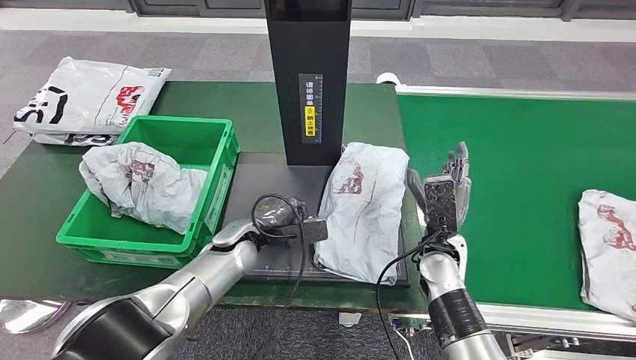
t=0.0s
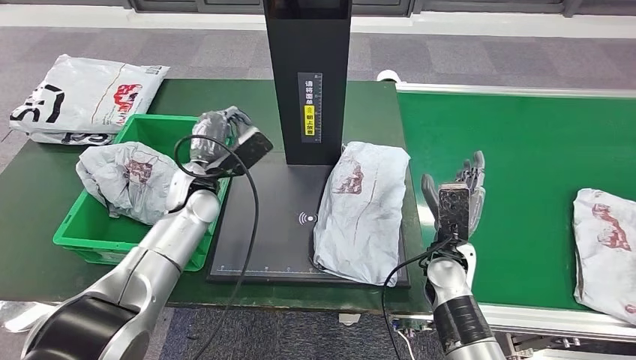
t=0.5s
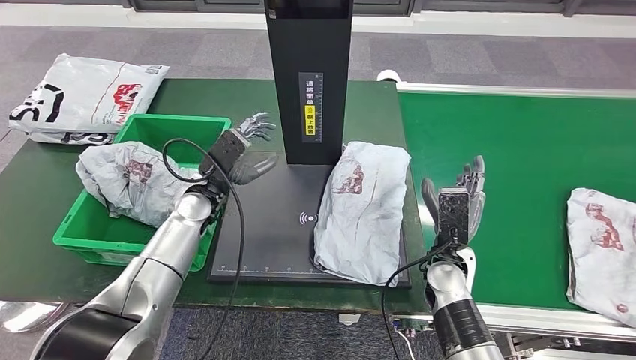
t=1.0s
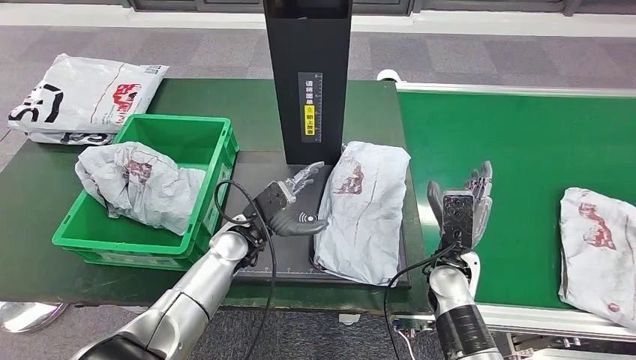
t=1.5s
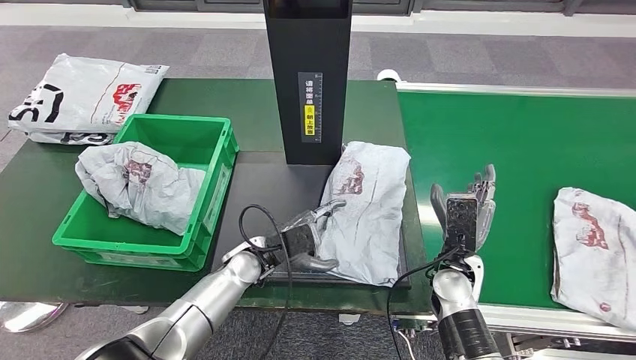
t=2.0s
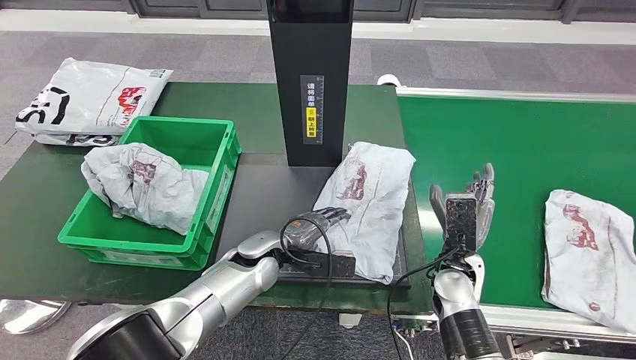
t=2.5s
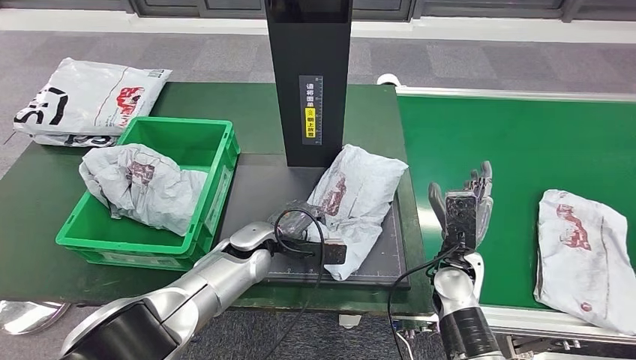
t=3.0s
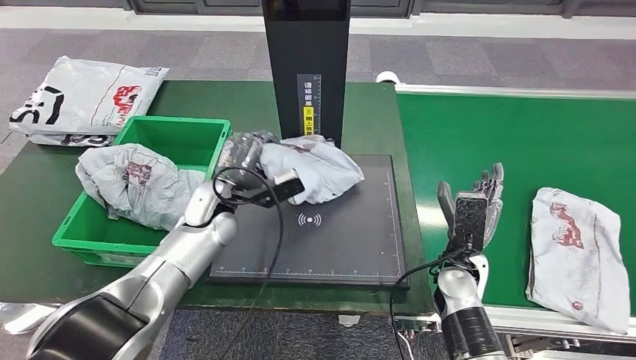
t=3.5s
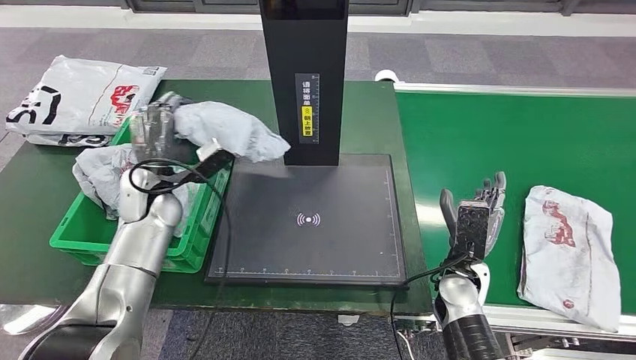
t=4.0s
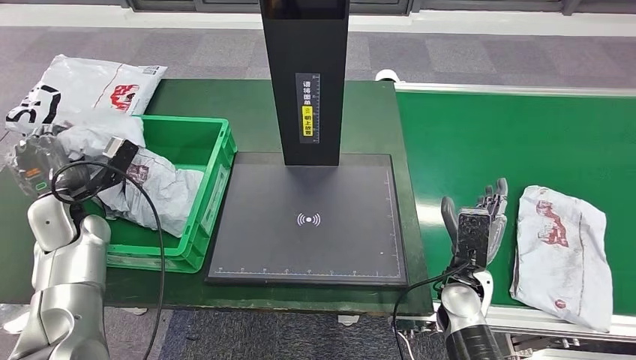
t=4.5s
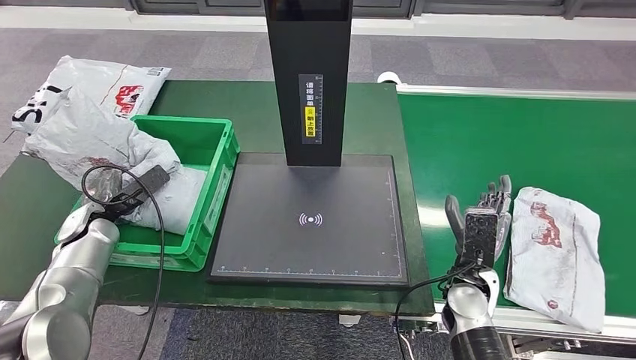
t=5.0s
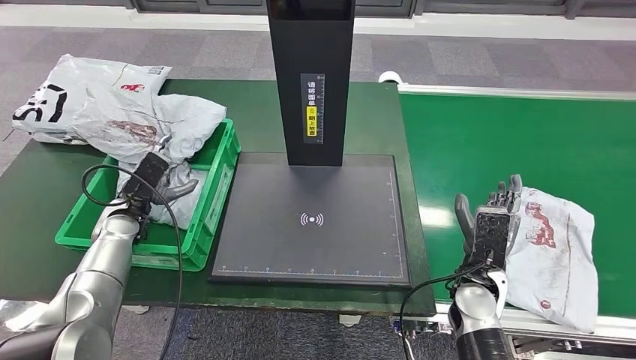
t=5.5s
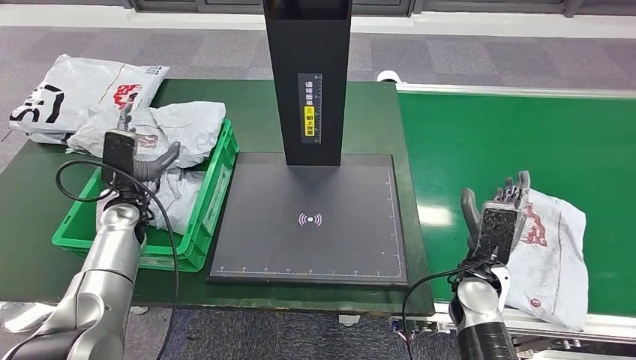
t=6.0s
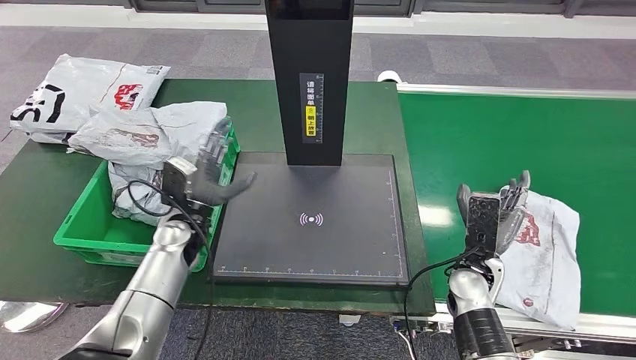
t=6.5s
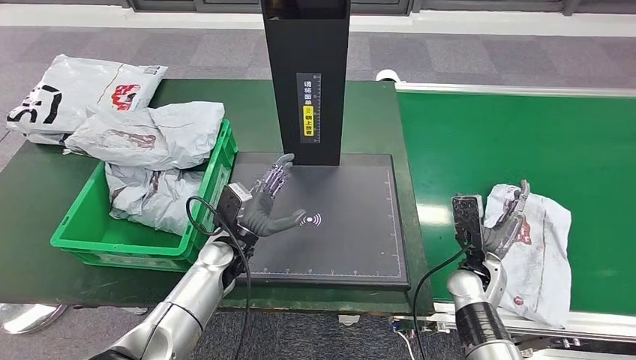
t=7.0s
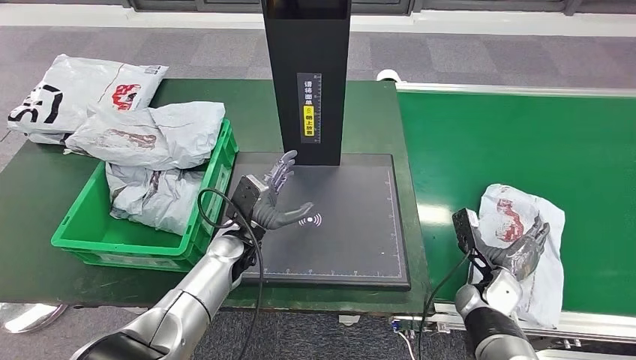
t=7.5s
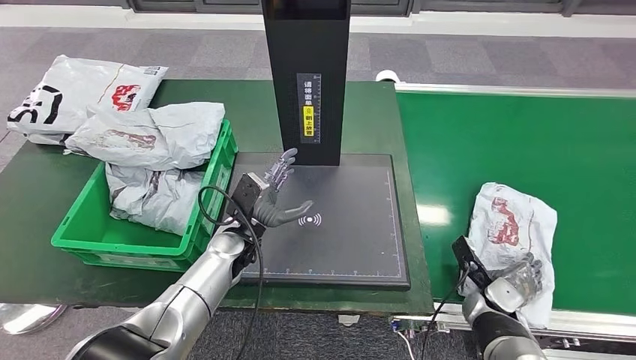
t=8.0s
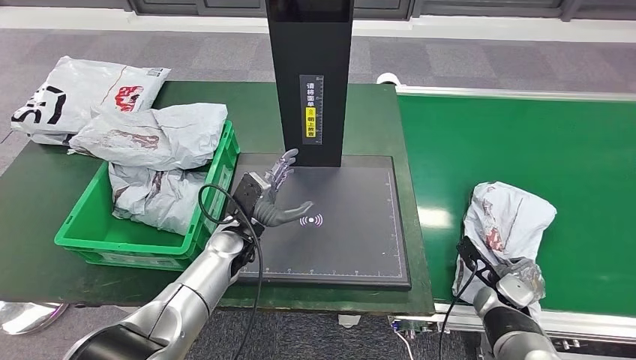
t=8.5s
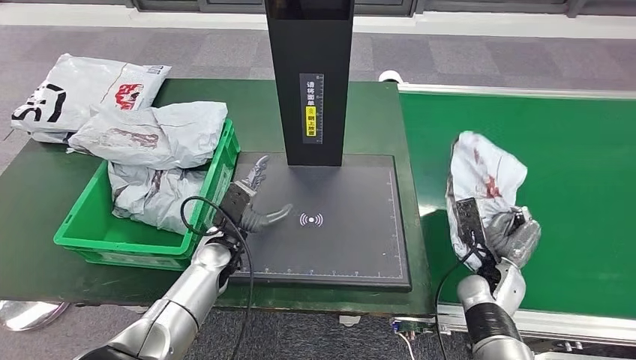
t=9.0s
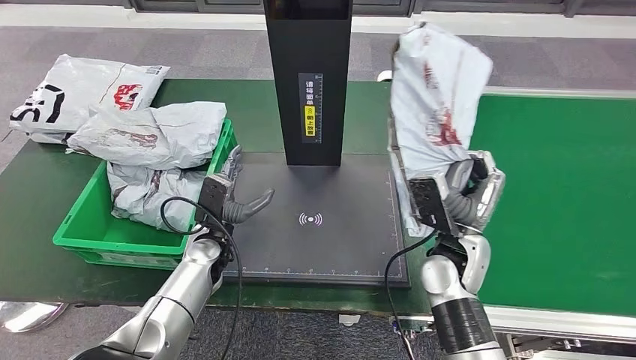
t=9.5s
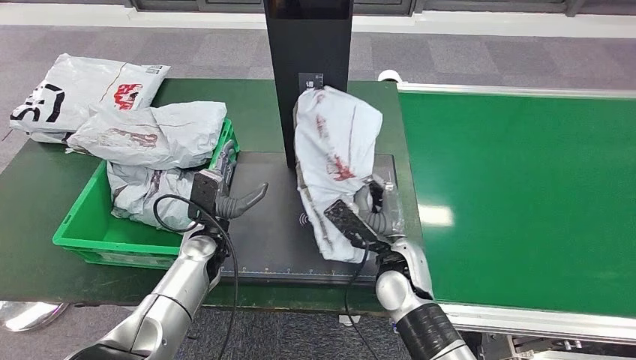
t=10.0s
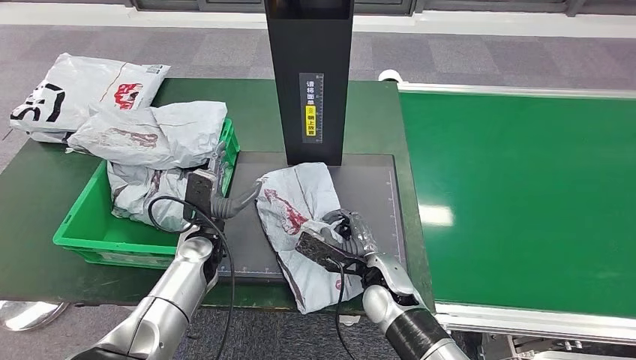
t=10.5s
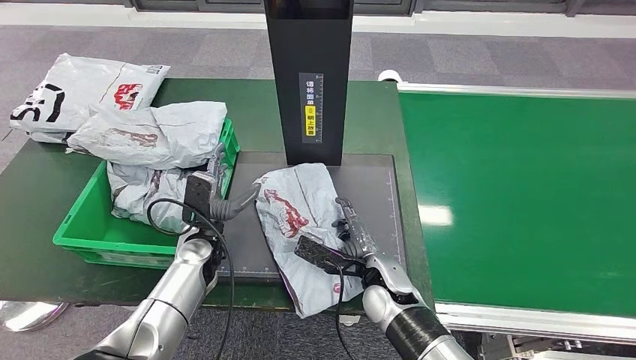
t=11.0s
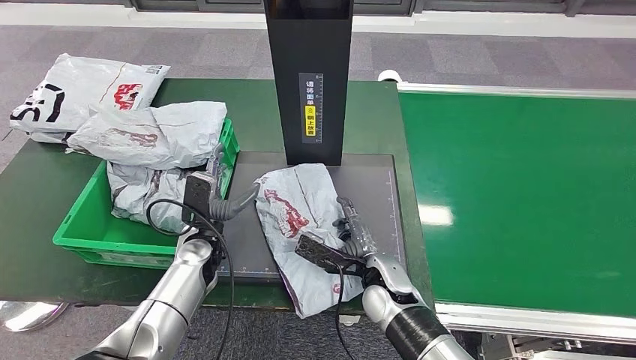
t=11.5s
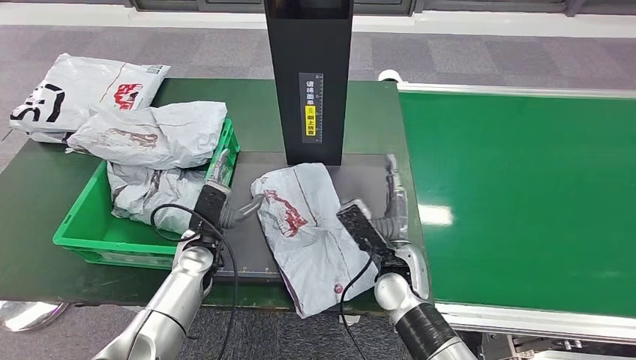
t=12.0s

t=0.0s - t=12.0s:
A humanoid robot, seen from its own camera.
Step, t=0.5s - t=3.5s: Pick up the parcel from the inbound machine.
Step, t=4.0s - t=6.5s: Place the parcel into the delivery box.
Step, t=7.0s - t=9.5s: Pick up the parcel from the conveyor belt.
Step, t=10.5s - t=11.0s: Place the parcel onto the inbound machine.

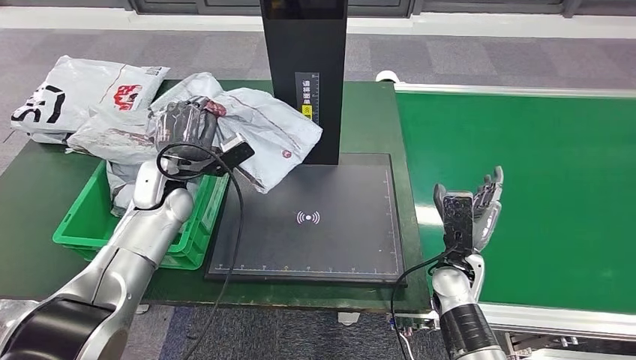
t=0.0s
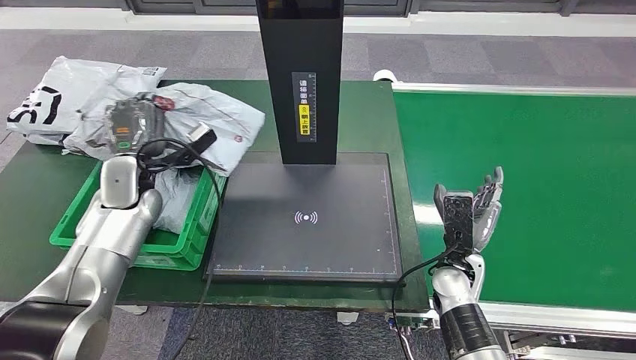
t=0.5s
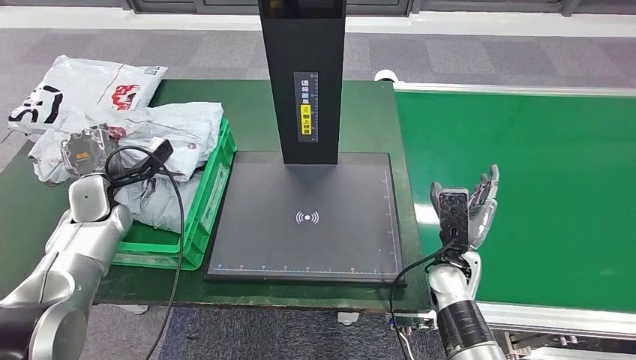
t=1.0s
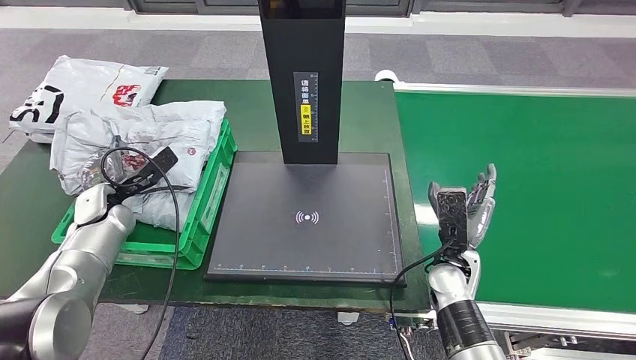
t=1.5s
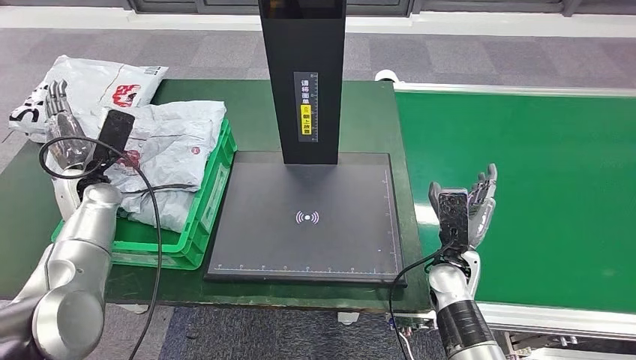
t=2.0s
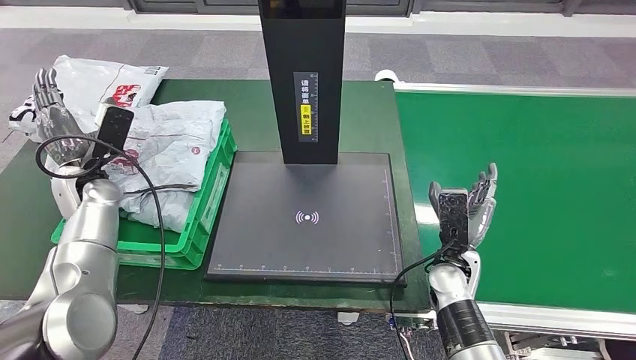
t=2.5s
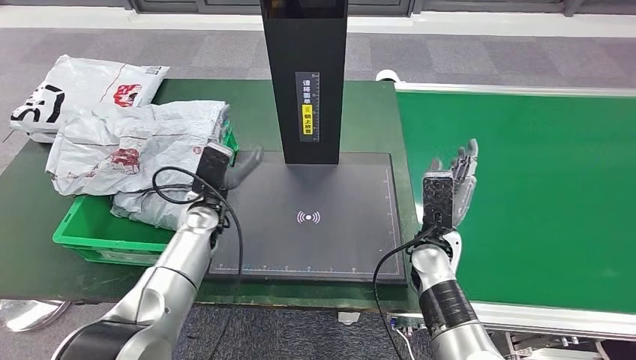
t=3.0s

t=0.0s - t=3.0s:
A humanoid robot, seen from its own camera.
Step, t=0.5s - t=3.0s: Place the parcel into the delivery box.
